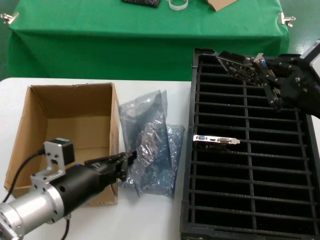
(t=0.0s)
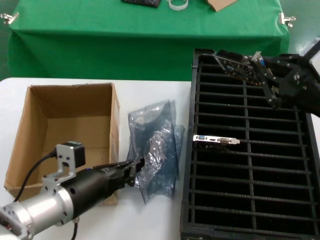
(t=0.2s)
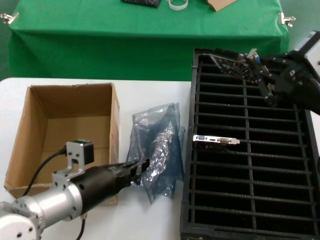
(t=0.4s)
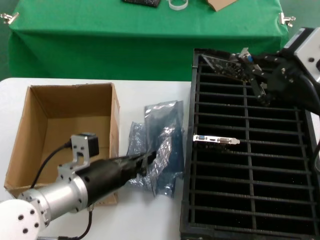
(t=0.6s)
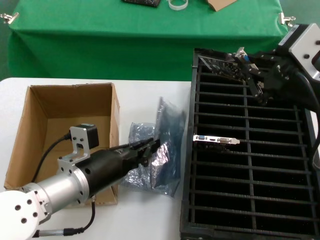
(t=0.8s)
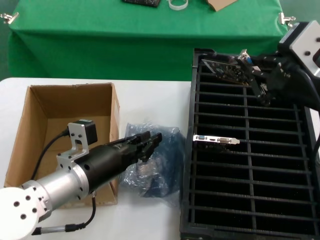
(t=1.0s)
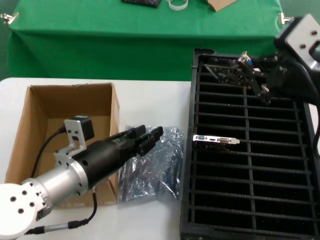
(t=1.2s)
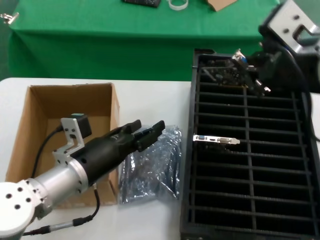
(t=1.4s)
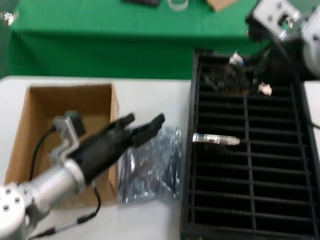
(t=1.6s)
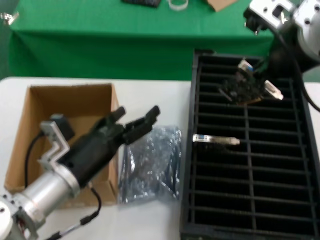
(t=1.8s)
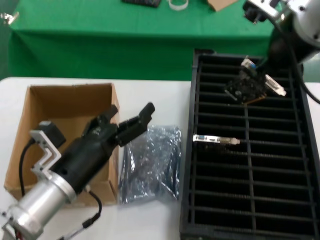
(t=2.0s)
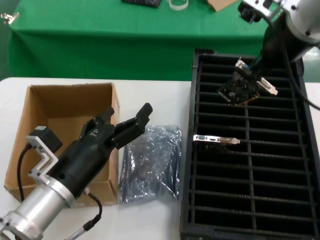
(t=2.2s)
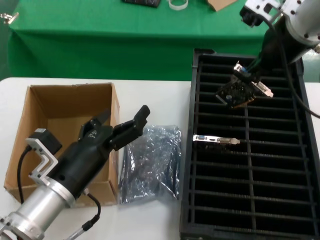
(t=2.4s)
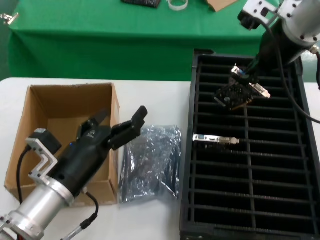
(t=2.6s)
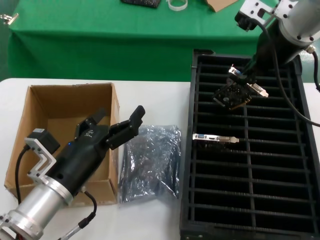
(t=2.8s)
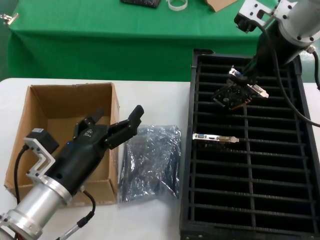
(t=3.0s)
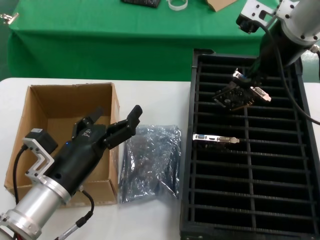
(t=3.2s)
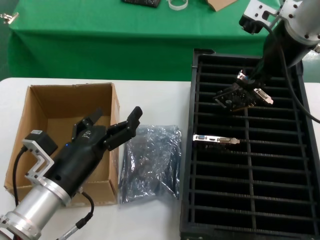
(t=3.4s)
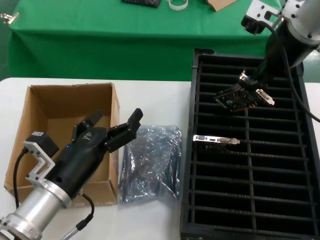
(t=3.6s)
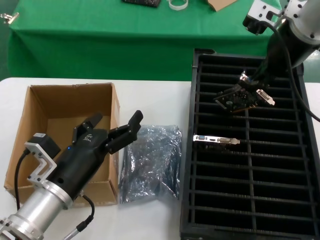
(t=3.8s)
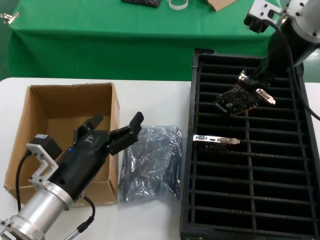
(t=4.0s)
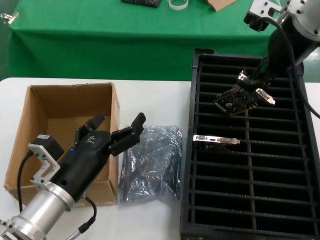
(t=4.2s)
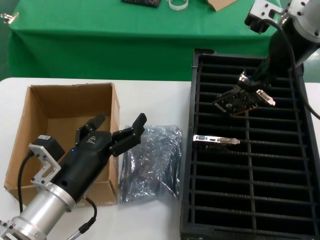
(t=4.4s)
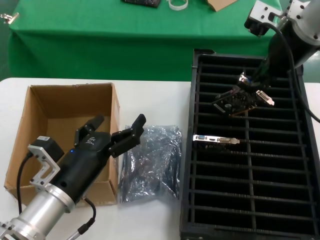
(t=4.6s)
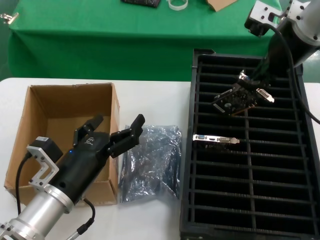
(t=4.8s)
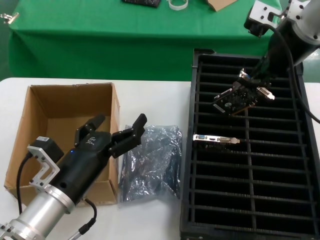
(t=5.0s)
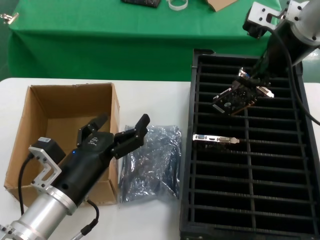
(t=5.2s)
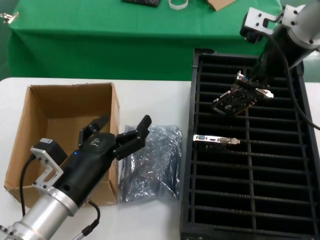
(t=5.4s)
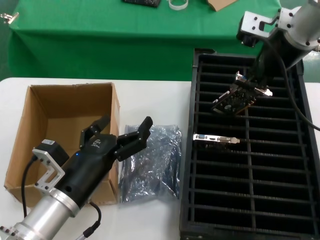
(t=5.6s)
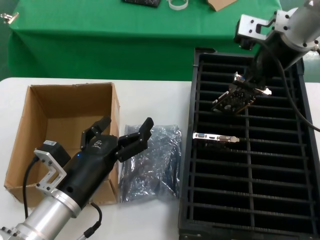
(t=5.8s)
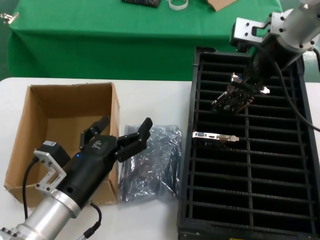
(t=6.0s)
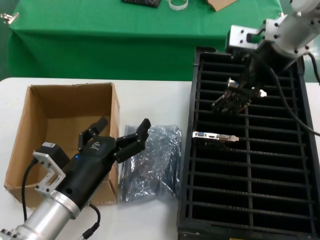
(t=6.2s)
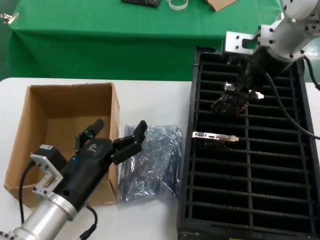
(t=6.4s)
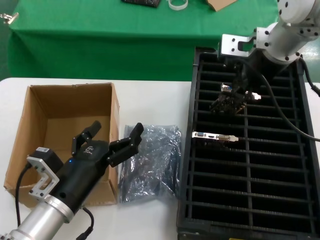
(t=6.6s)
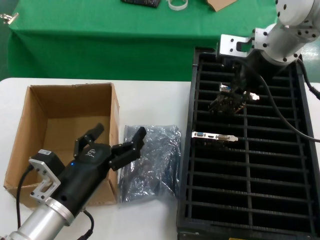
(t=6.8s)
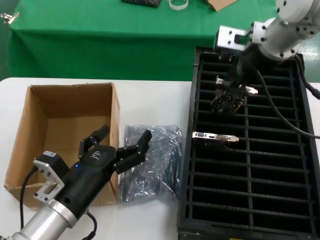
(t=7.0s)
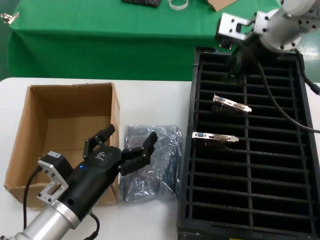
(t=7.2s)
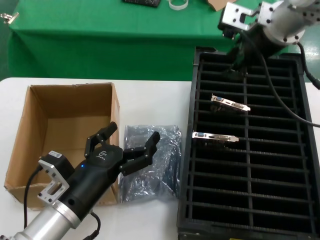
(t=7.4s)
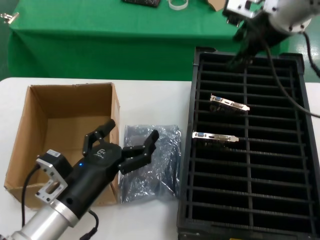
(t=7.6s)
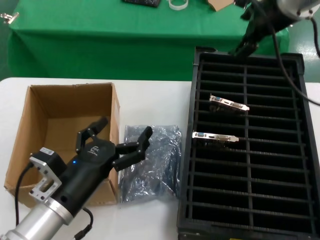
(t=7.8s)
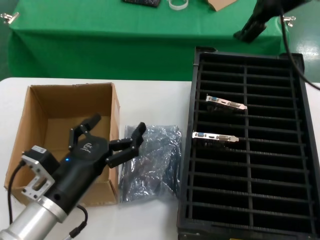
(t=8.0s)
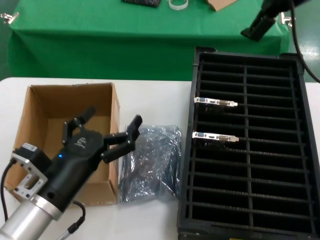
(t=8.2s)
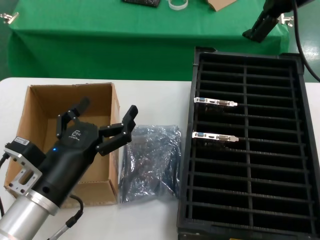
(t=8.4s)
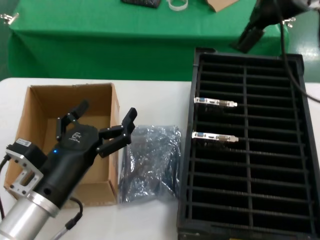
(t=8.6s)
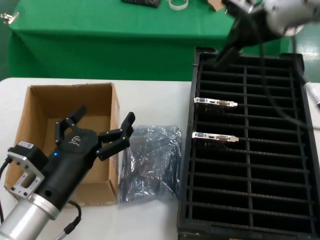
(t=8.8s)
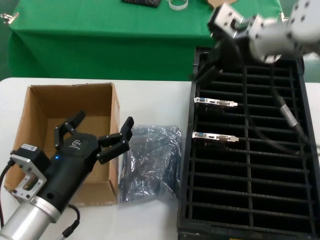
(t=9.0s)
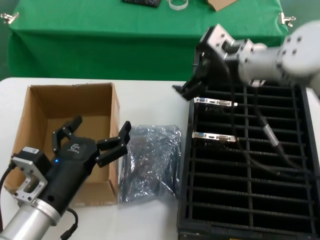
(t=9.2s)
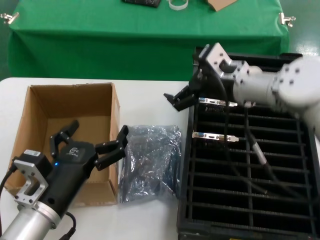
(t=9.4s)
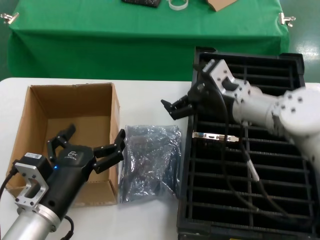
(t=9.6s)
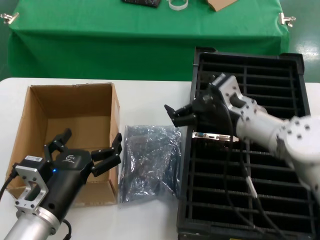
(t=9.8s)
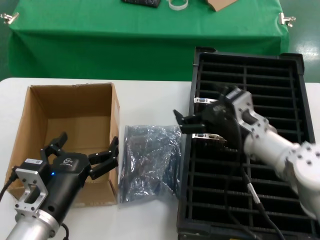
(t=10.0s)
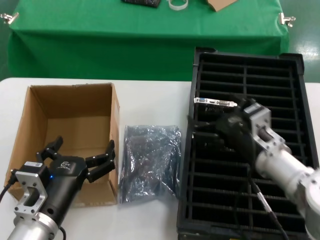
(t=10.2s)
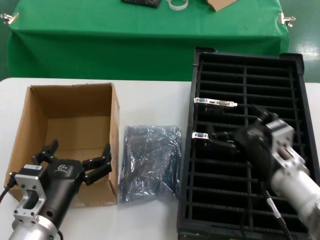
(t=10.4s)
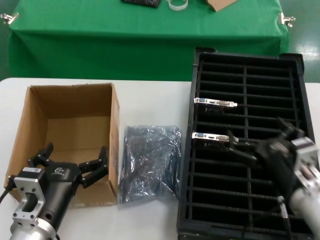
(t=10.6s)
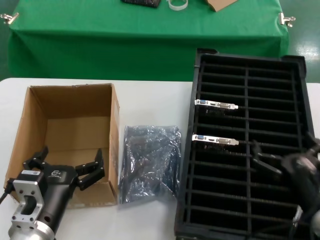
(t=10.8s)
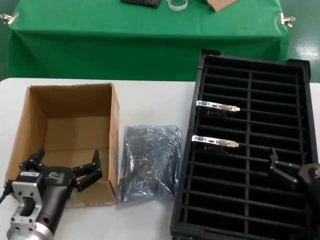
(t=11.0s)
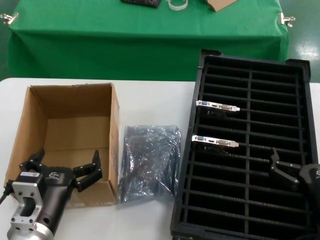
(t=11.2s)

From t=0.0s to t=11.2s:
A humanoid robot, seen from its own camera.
Task of the whole recording: take out graphics card from box remove packaging put into black container.
Step, from t=1.6s to t=7.8s: Place the hard disk in the hard disk enclosure.
From t=0.0s to t=1.6s: The left hand shifts by roughly 5 cm. The right hand is displaced upward and to the left by about 10 cm.
From t=1.6s to t=3.2s: The right hand moves forward, some 20 cm.
From t=3.2s to t=4.8s: The hands make only small movements.
From t=4.8s to t=6.4s: The right hand moves roughly 5 cm.
From t=6.4s to t=8.0s: The right hand travels upward by some 10 cm.
From t=8.0s to t=9.6s: The right hand is displaced downward by some 25 cm.
From t=9.6s to t=11.2s: The right hand shifts roughly 30 cm backward, downward and to the right.

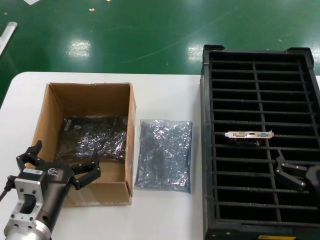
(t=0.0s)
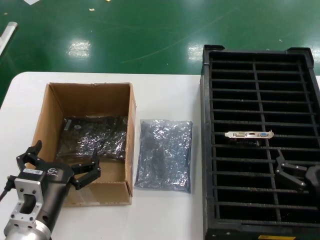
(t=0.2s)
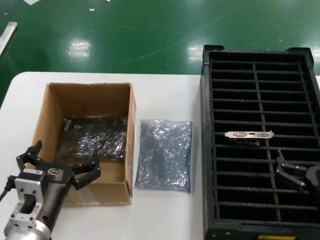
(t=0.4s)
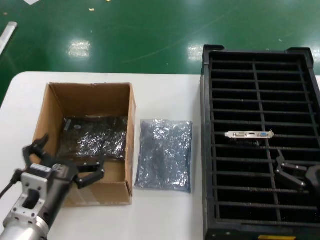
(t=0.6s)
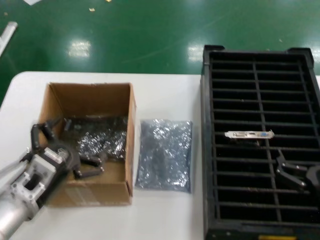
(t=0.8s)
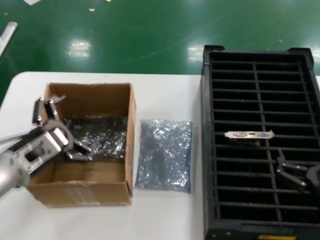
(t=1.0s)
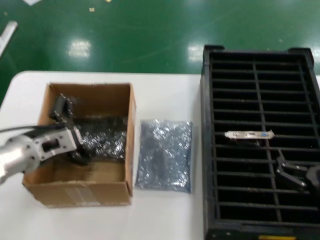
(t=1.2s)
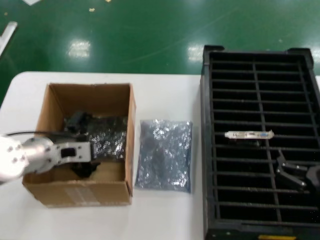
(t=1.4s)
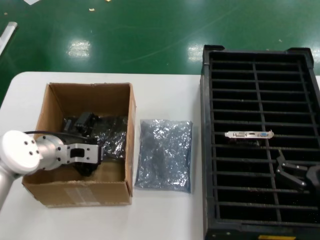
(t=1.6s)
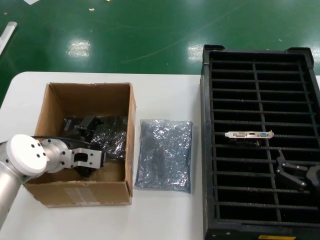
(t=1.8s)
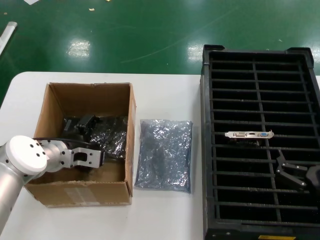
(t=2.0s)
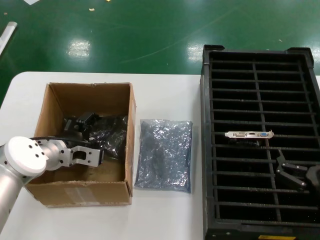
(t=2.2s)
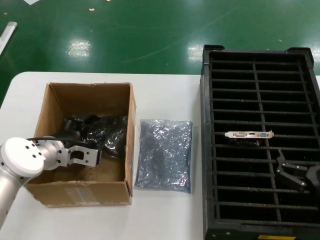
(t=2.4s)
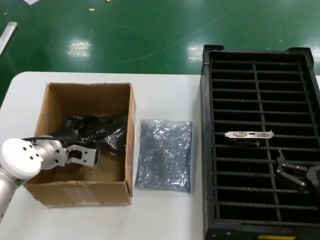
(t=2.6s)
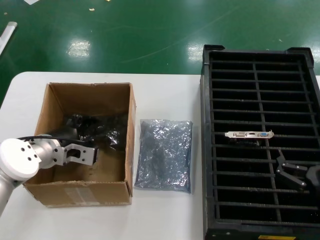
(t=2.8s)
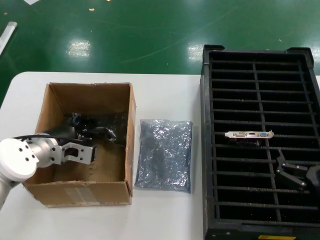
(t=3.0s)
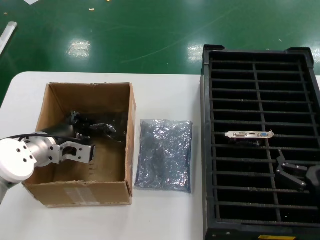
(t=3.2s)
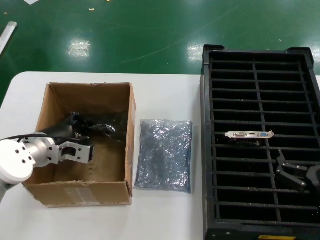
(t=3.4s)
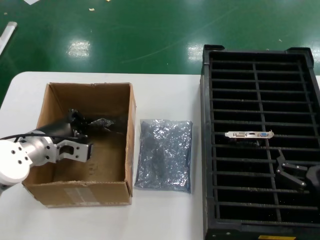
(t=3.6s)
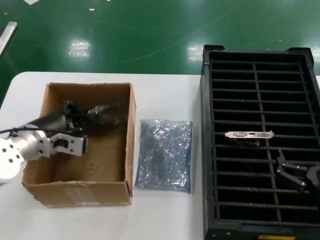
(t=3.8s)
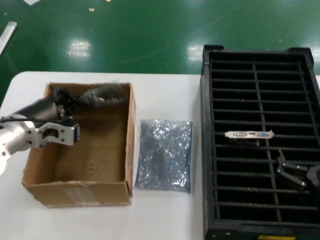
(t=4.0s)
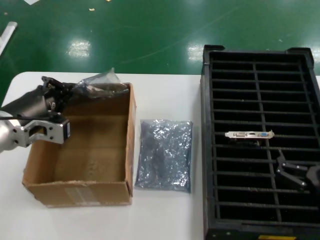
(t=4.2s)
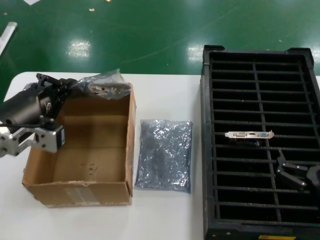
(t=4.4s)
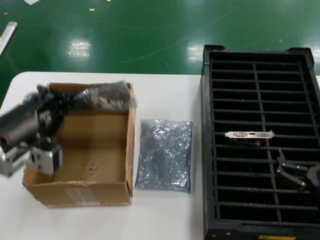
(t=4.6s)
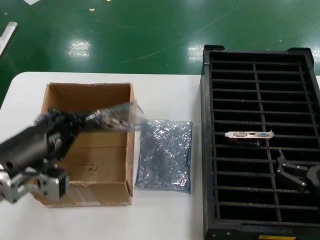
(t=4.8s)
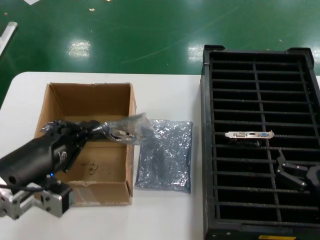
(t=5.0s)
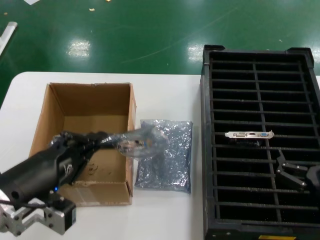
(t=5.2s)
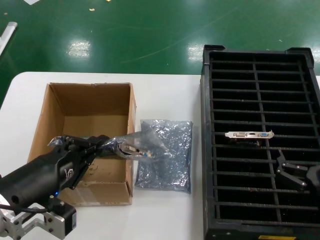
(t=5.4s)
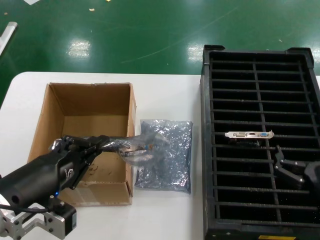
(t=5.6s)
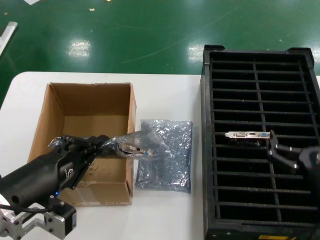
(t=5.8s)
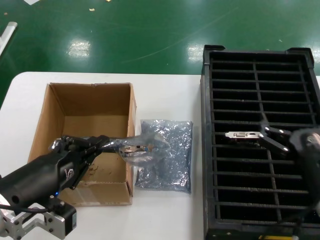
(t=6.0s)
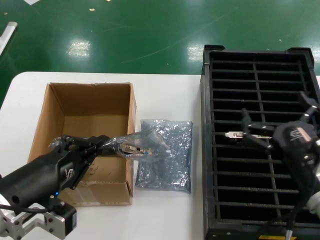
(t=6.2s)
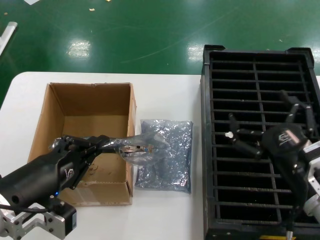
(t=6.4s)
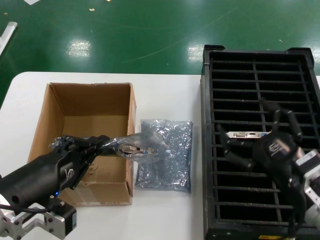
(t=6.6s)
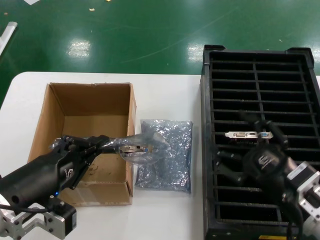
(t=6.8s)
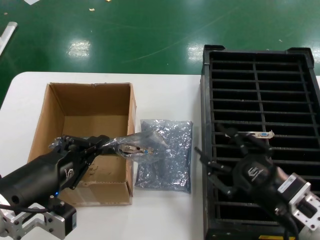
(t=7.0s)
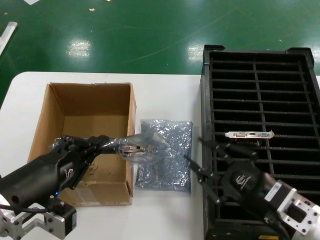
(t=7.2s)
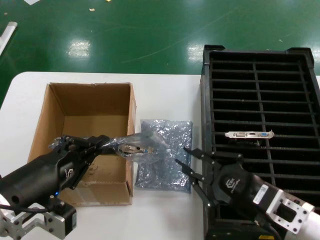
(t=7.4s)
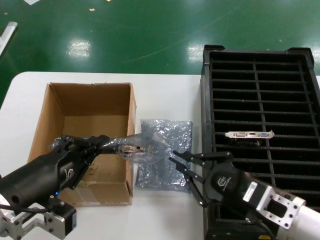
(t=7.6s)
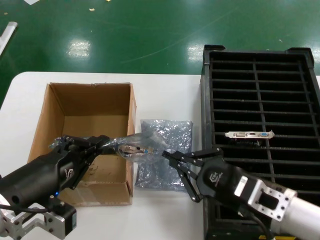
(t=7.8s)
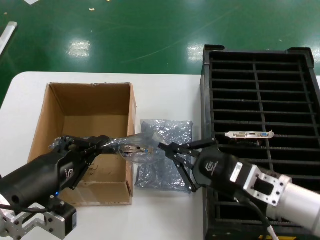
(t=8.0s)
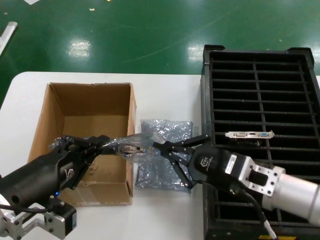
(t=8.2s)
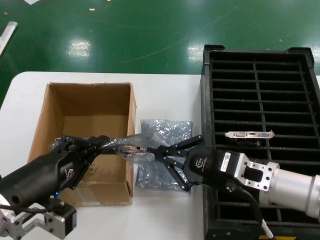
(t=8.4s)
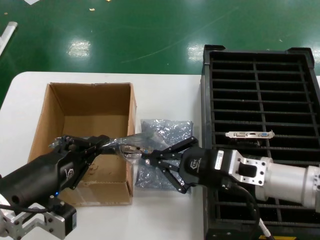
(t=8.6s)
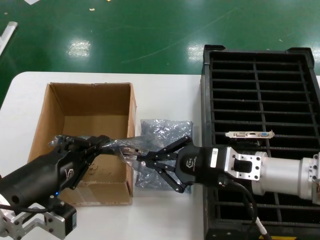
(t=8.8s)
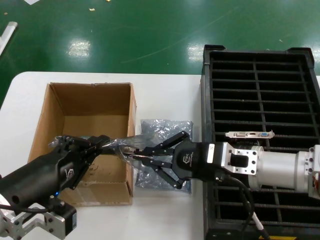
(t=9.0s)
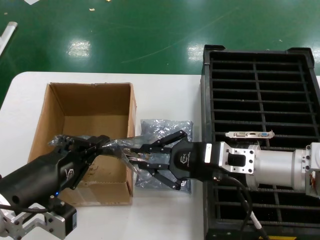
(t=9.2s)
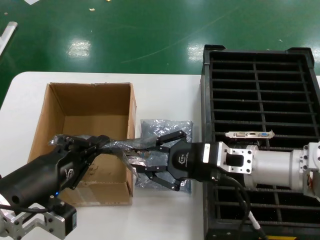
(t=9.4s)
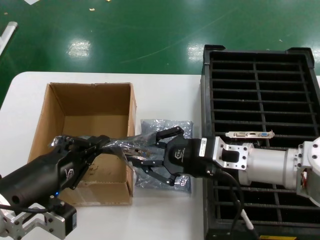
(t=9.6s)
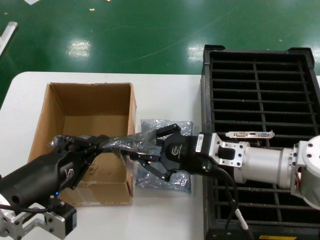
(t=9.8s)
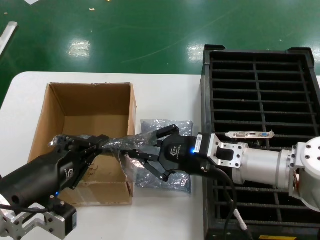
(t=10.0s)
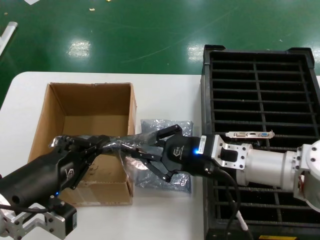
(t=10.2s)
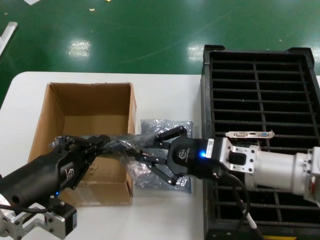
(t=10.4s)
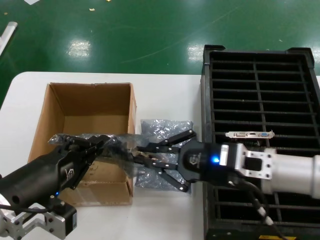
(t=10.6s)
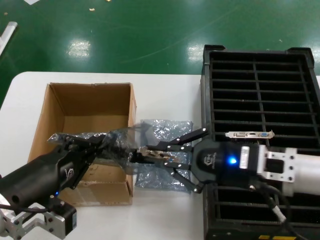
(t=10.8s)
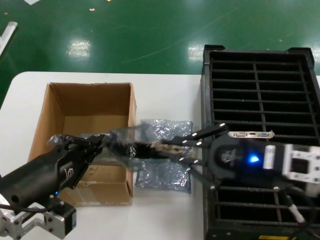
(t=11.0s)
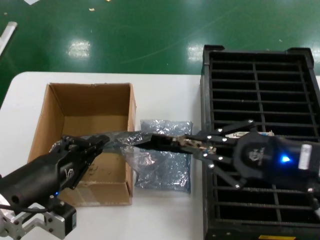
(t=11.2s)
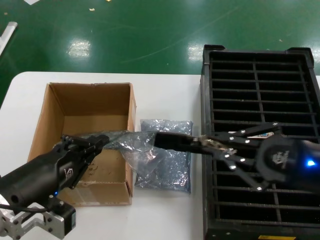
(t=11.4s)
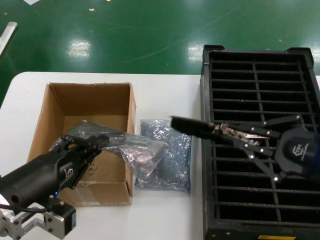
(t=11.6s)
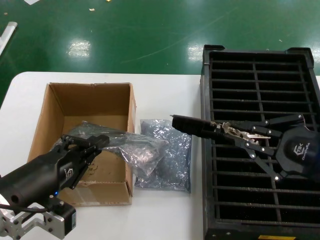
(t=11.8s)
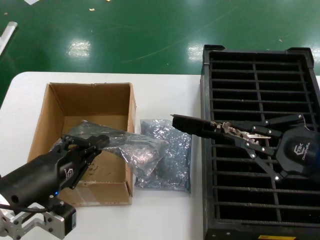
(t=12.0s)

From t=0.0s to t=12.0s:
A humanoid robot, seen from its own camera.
Task of the whole recording: take out graphics card from box remove packaging put into black container.
Step, from t=0.0s to t=3.0s: Grasp the bag.
Step, from t=3.2s to t=5.6s: Lift the bag.
Step, from t=6.0s to t=11.6s: Take out the hard disk of the bag.
From t=0.0s to t=1.6s: The left hand goes some 20 cm forward.
From t=1.6s to t=3.0s: The hands stay close to where they were, moving slightly.
From t=3.0s to t=4.4s: The left hand heads backward and upward, covering some 15 cm.
From t=4.4s to t=6.0s: The left hand is displaced backward by roughly 10 cm; the right hand changes place by some 5 cm.
From t=7.6s to t=9.0s: The right hand travels forward and upward by about 10 cm.
From t=9.0s to t=10.4s: There are only small adjustments of the hands.
From t=10.4s to t=12.0s: The right hand goes approximately 20 cm to the right, backward and upward.
